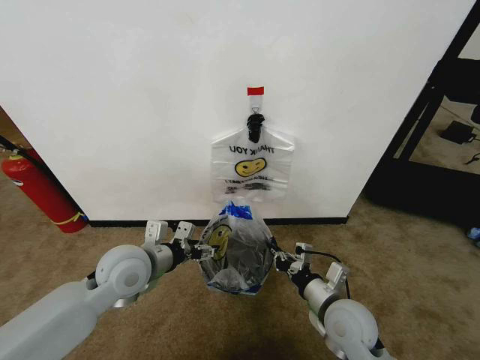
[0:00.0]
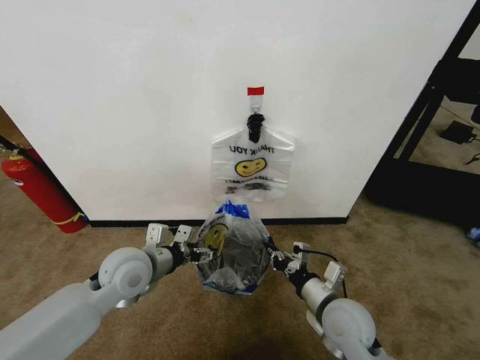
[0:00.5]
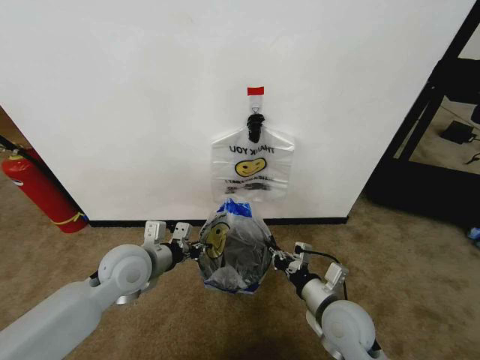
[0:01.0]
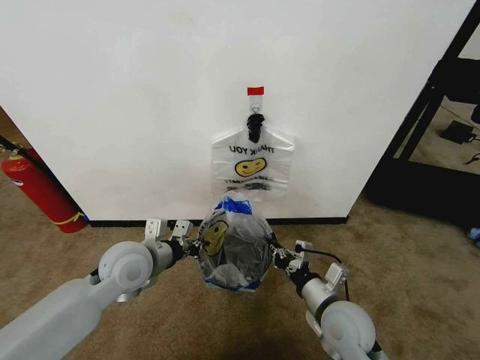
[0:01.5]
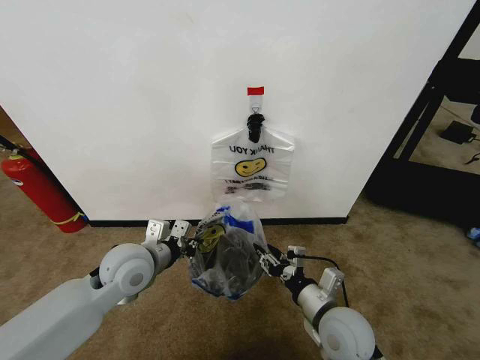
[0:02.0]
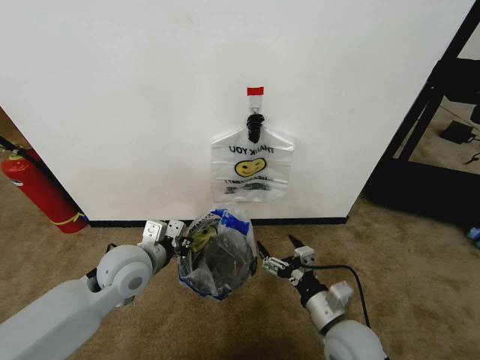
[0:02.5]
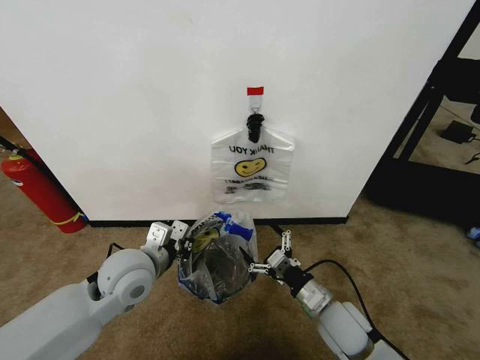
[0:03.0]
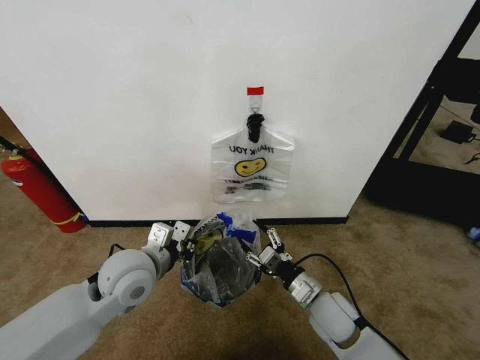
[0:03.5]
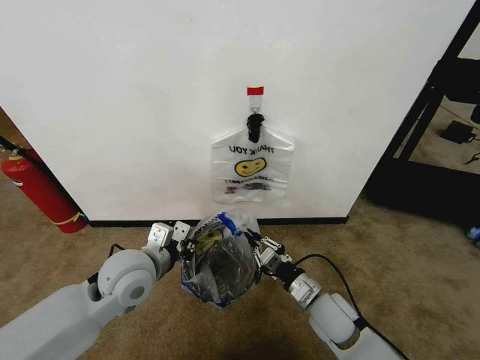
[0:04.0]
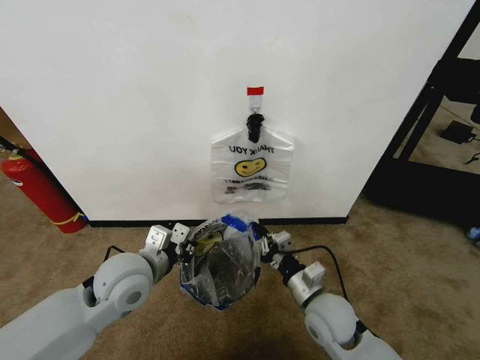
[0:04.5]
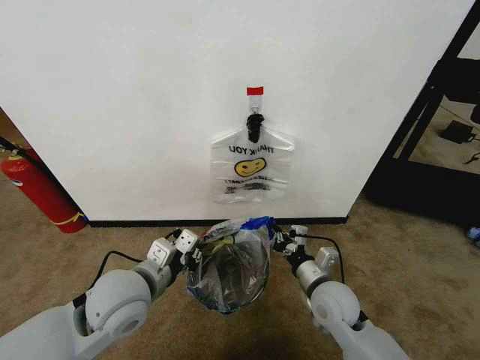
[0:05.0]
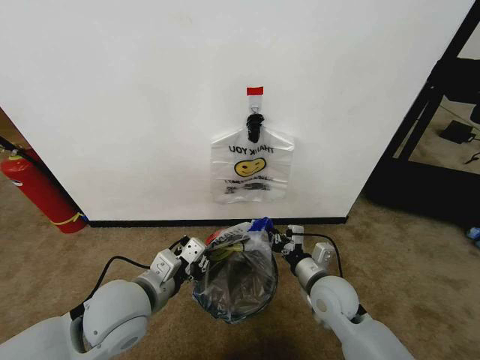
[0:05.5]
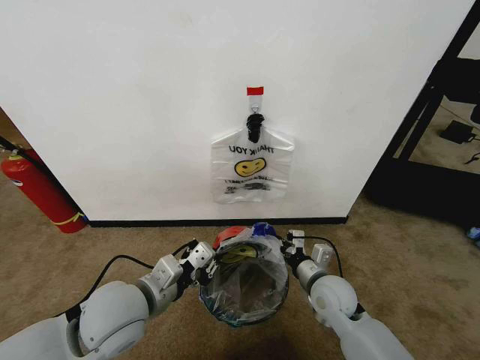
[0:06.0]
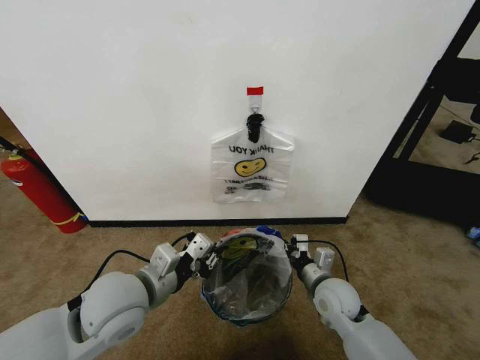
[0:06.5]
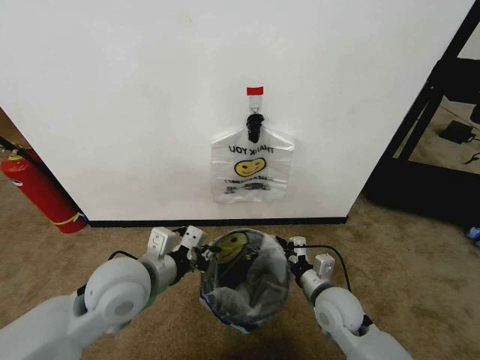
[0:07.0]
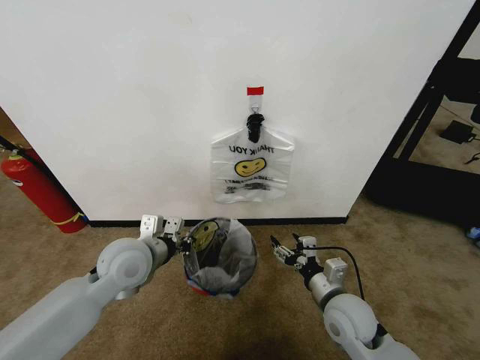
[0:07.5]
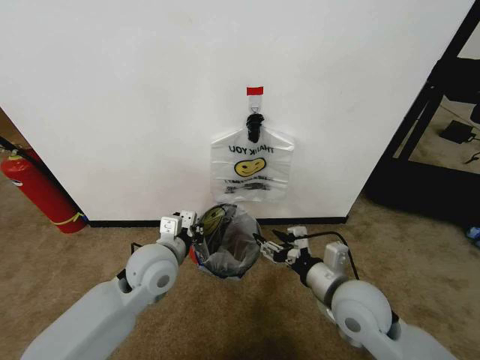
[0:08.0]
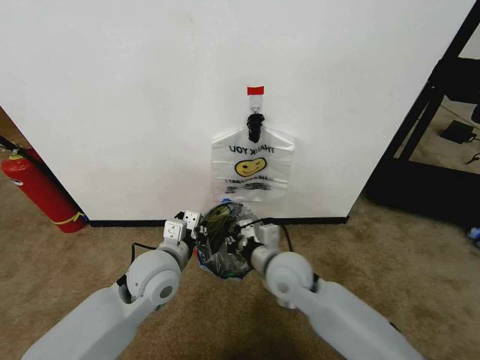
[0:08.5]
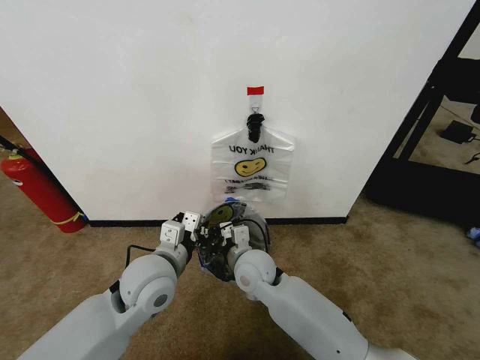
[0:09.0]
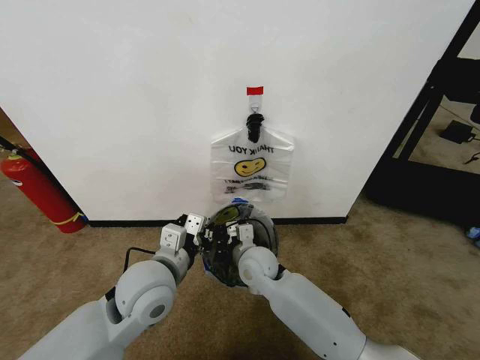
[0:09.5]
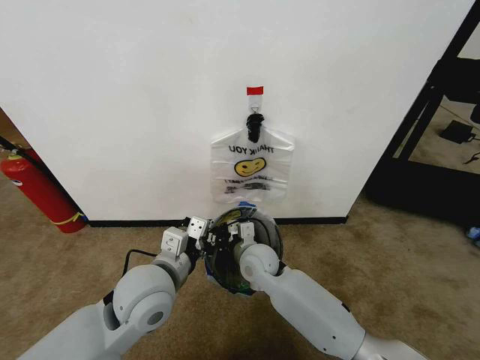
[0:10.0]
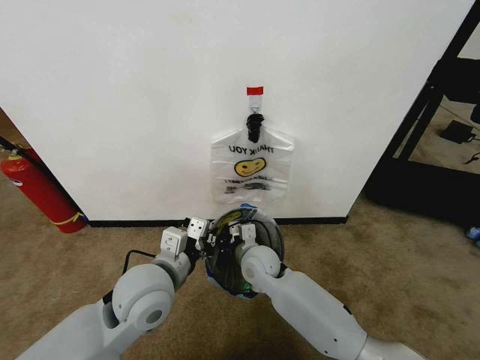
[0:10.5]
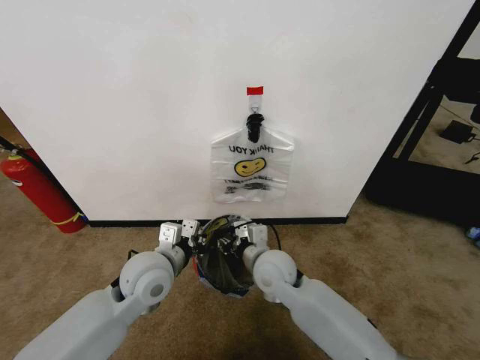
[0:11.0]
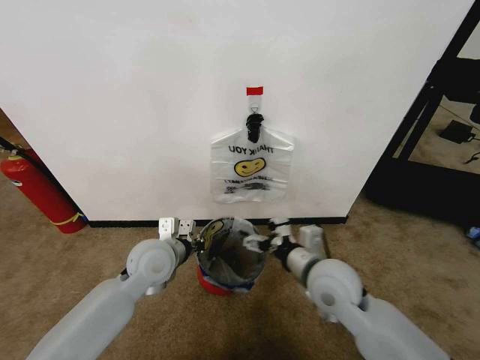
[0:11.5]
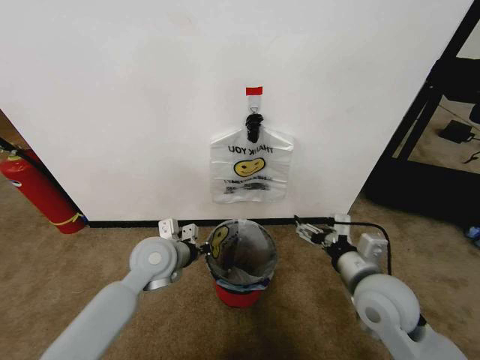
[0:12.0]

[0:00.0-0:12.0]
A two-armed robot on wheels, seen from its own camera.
Task of the whole recording: Pick up the garbage bag from the wall and place it over the trash bin.
0:00.0 to 0:02.0: The left gripper closes. The right gripper opens its fingers.
0:02.0 to 0:04.0: The right gripper travels downward by about 5 cm, and closes its fingers.
0:04.0 to 0:06.0: The left gripper shifts about 5 cm backward.
0:06.0 to 0:08.0: The right gripper shifts roughly 10 cm upward and backward, and opens; the left gripper moves forward, approximately 10 cm.
0:08.0 to 0:10.0: The right gripper shifts approximately 25 cm to the left, forward and downward, and closes its fingers, while the left gripper is displaced backward by approximately 5 cm.
0:10.0 to 0:12.0: The right gripper heads to the right, backward and upward, covering some 25 cm, and opens up, while the left gripper travels forward and downward by some 10 cm.

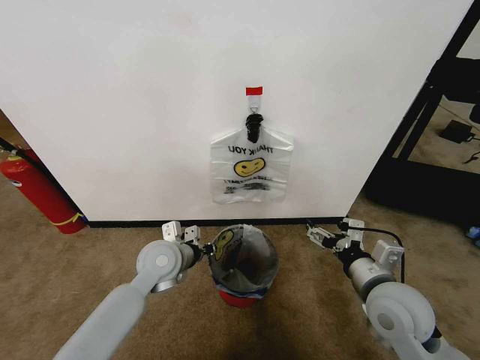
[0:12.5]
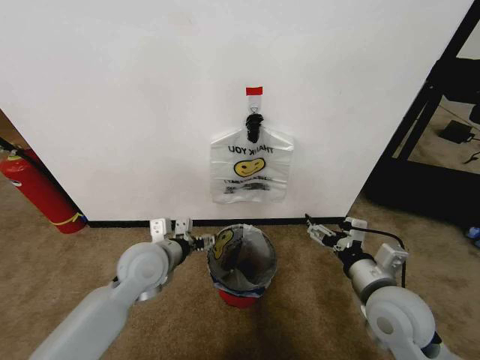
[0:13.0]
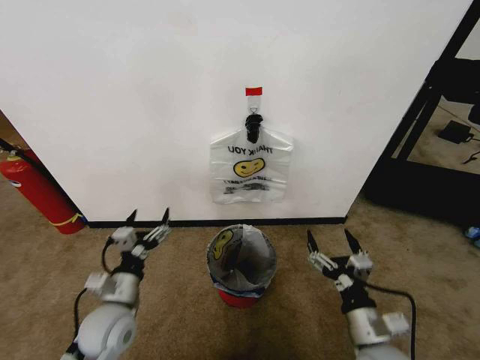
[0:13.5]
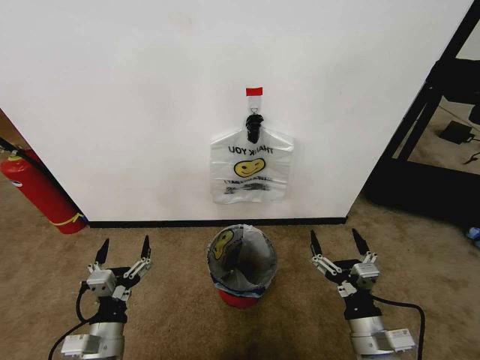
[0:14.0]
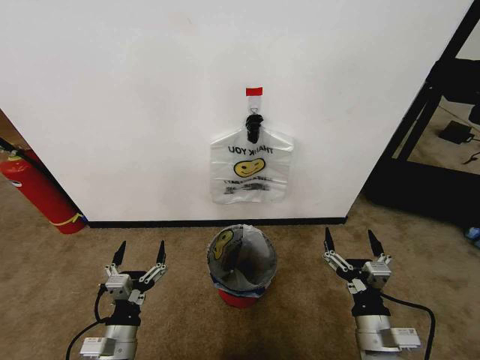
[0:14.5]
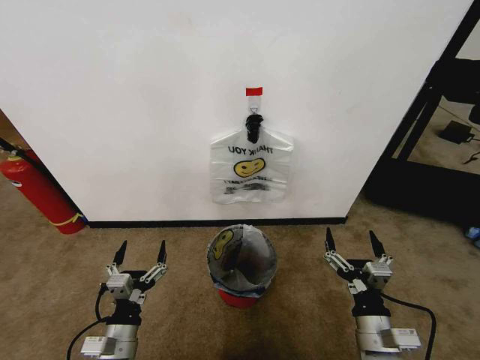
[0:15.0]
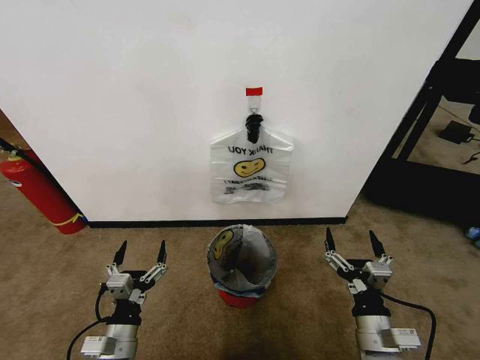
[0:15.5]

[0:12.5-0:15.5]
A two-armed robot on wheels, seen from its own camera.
Task of the whole recording: Pick up the garbage bag from the wall and place it over the trash bin.
0:12.5 to 0:14.0: The right gripper travels downward and backward by roughly 15 cm. Meanwhile the left gripper is displaced backward, to the left and downward by approximately 25 cm, and opens up.
0:14.0 to 0:15.5: There are only small adjustments of the grippers.

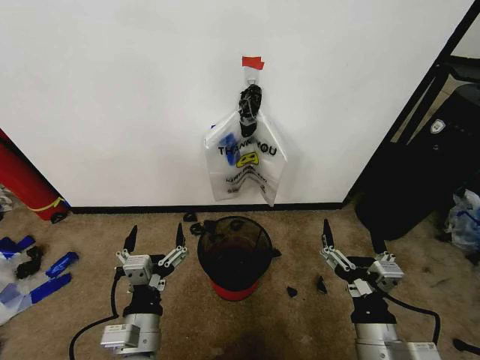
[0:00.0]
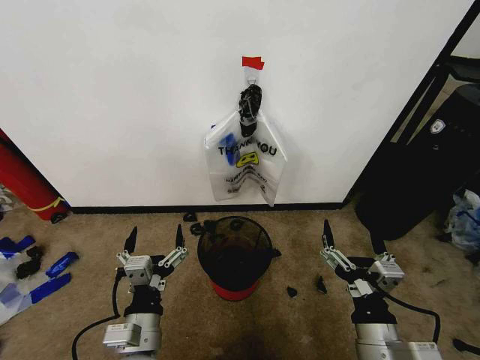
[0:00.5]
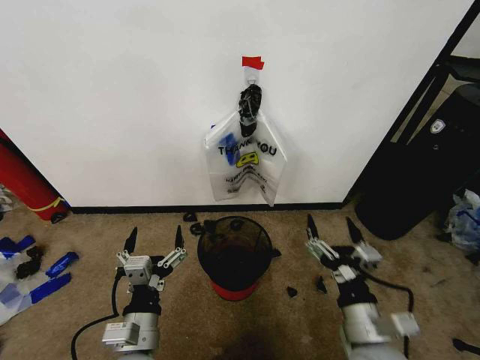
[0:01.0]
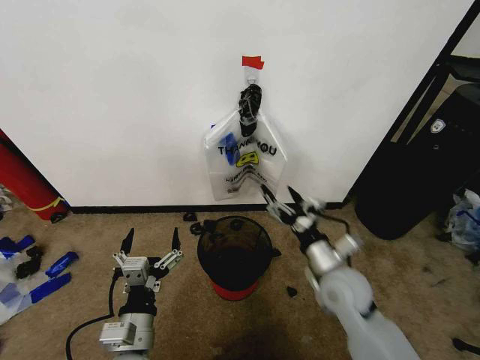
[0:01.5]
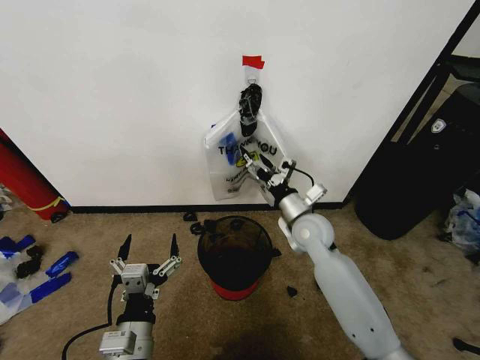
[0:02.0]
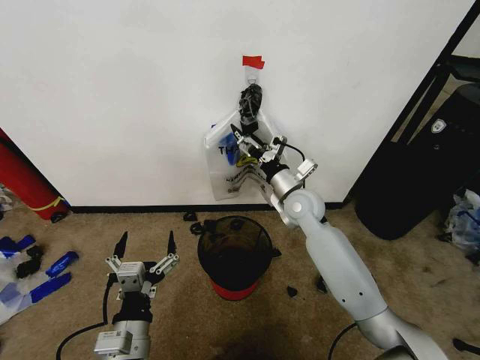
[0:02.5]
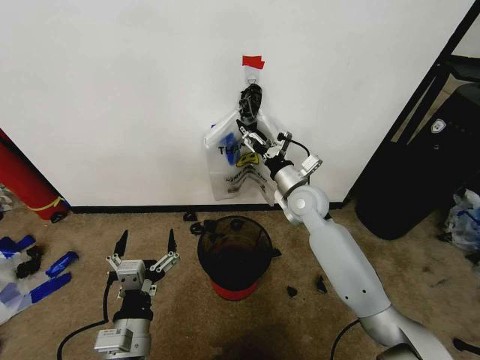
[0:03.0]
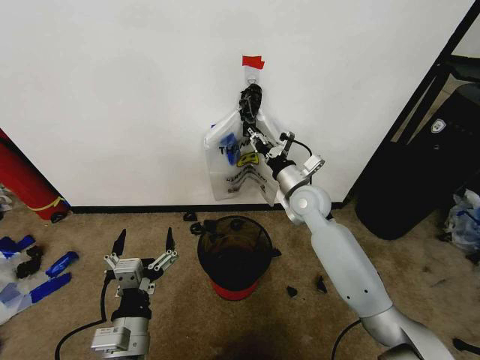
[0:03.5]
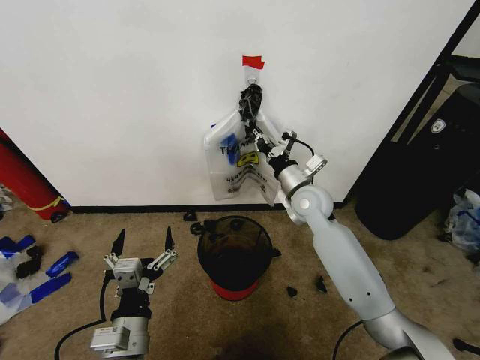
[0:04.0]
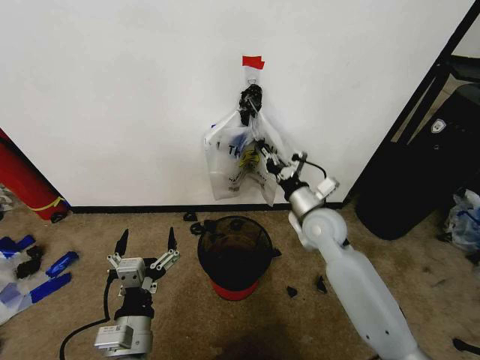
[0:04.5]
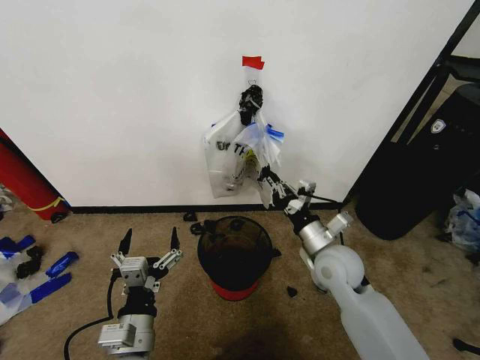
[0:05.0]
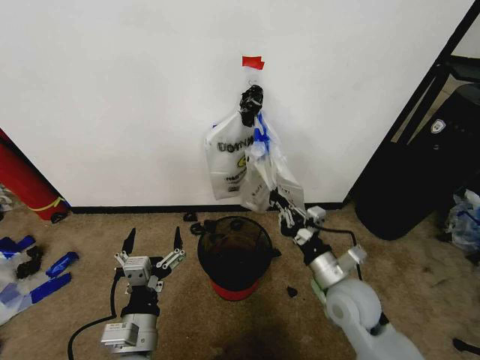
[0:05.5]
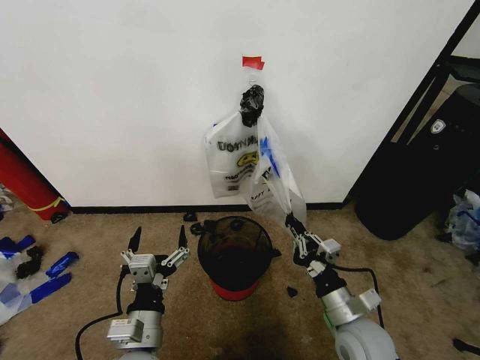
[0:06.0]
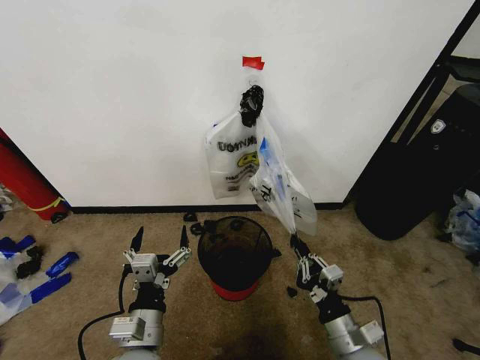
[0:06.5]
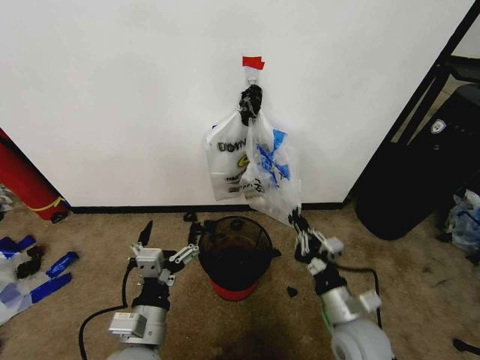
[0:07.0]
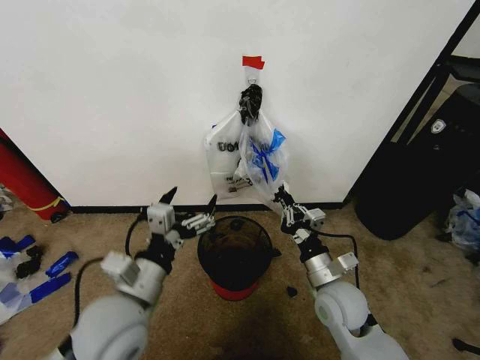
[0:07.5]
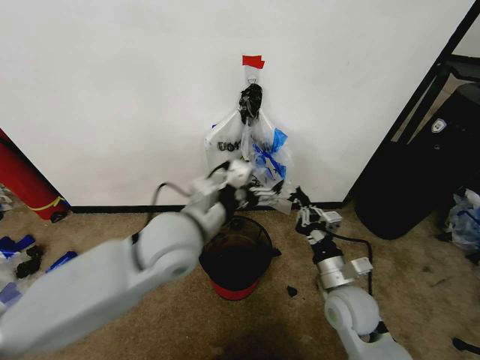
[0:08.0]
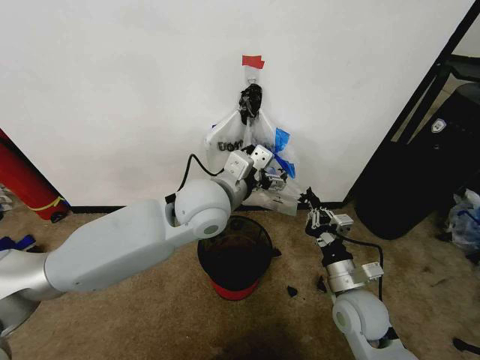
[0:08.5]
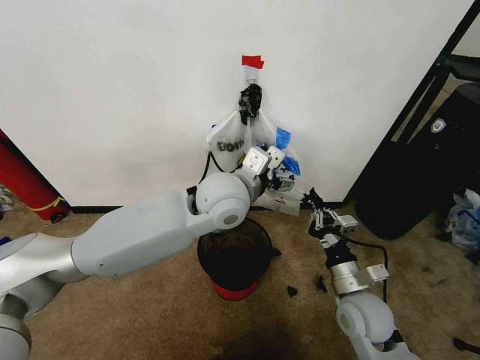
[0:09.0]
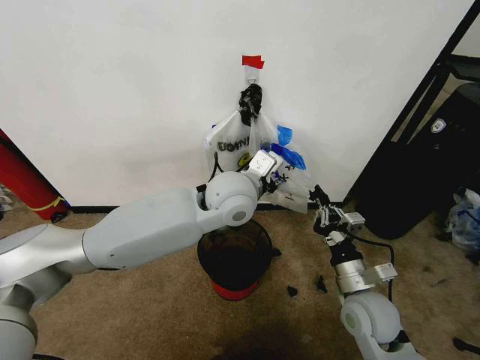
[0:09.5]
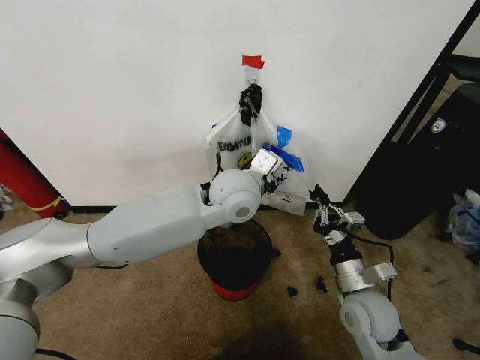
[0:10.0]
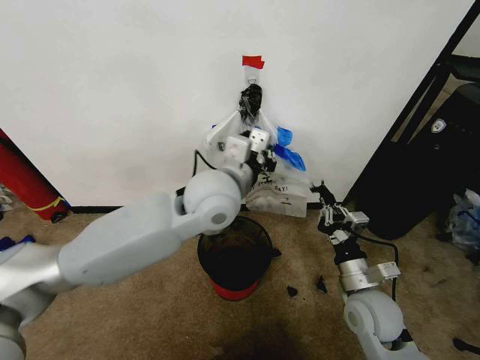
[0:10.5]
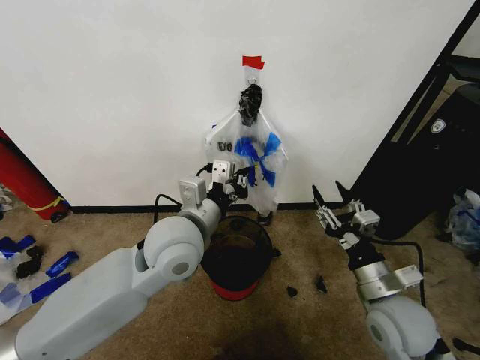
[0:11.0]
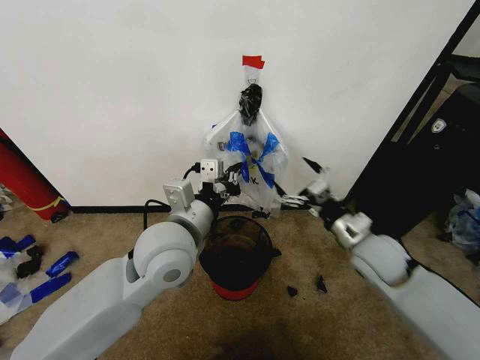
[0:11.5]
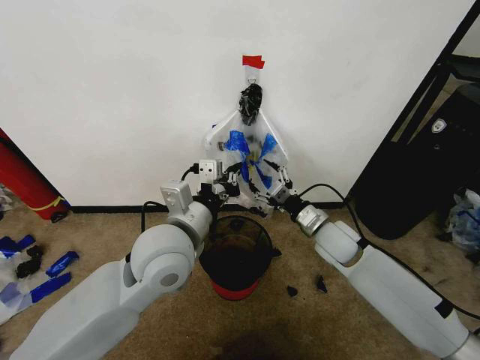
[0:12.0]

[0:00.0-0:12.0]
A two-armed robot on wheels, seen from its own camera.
Task of the whole recording: Pick up the garbage bag from the wall and place it over the trash bin.
0:02.0 to 0:04.0: The right gripper changes place by some 5 cm, and closes.
0:04.0 to 0:06.0: The right gripper is displaced backward and downward by approximately 30 cm.
0:06.0 to 0:08.0: The left gripper goes about 25 cm upward and forward; the right gripper is displaced forward by some 5 cm.
0:08.0 to 0:10.0: The left gripper is displaced to the right and forward by approximately 15 cm, and closes up.
0:10.0 to 0:12.0: The left gripper moves backward and to the left, about 15 cm; the right gripper is displaced forward by roughly 15 cm, and opens its fingers.
